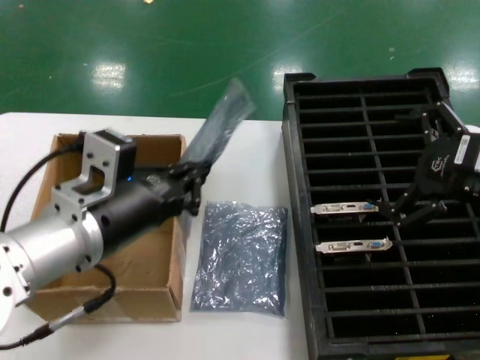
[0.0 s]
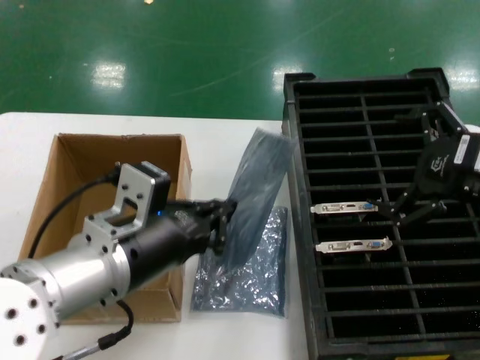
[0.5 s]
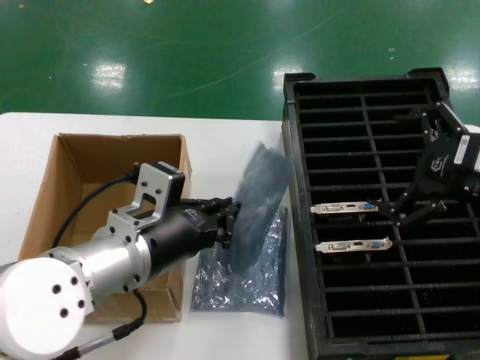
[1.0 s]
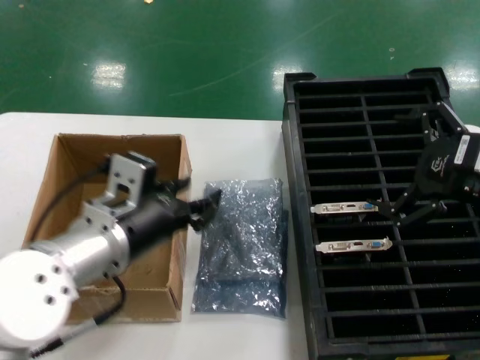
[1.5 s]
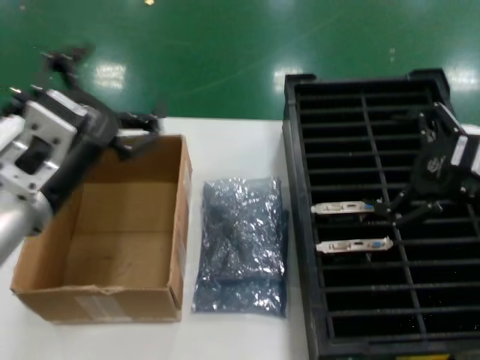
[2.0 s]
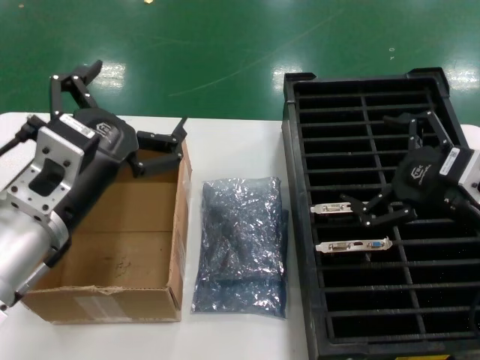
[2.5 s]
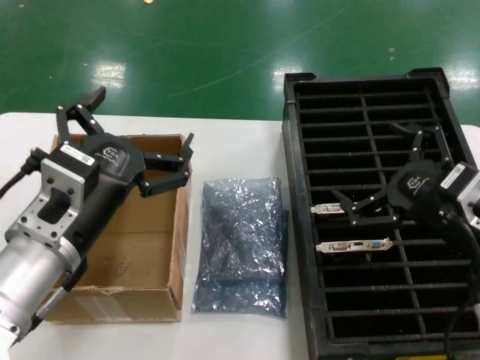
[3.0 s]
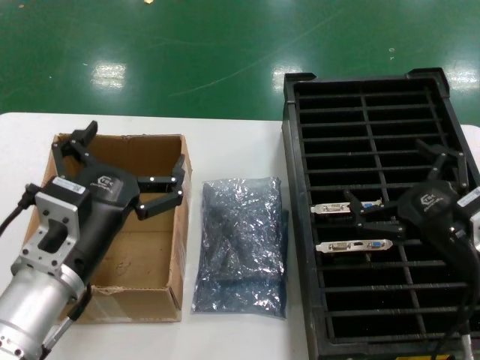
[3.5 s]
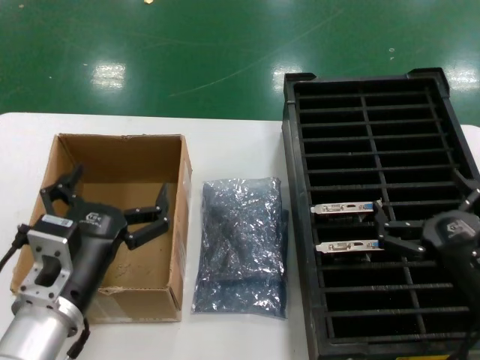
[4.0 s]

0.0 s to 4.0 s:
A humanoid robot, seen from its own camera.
Task of the whole recording: take out graphics card from box remove packaging put into black container.
Step, 0.0 to 2.0 s: Place the down the bag.
2.0 to 4.0 s: The left hand heads downward, covering about 15 cm, while the right hand shifts some 20 cm downward and backward.
